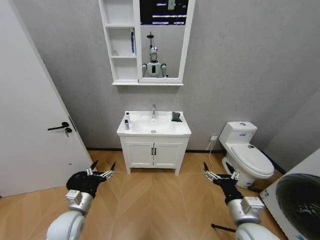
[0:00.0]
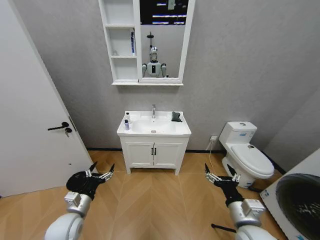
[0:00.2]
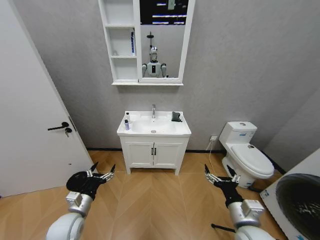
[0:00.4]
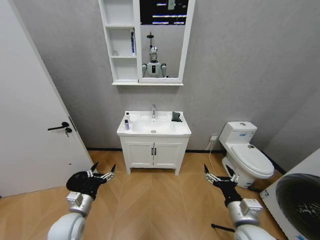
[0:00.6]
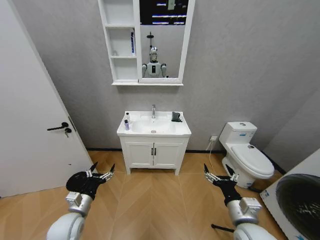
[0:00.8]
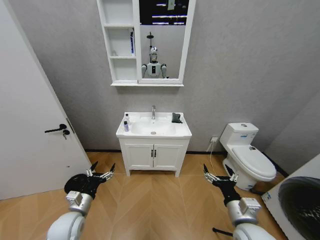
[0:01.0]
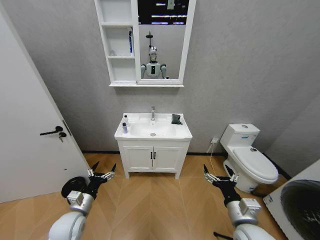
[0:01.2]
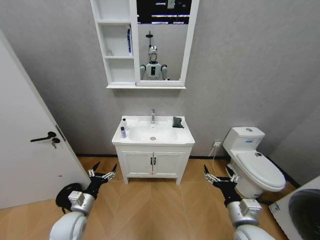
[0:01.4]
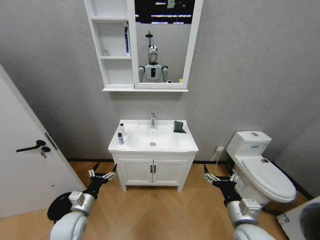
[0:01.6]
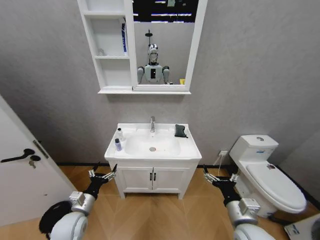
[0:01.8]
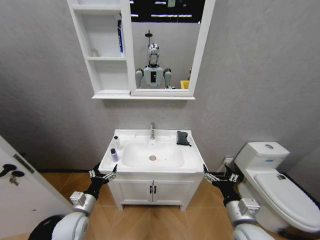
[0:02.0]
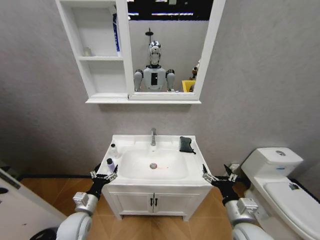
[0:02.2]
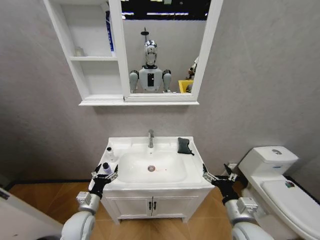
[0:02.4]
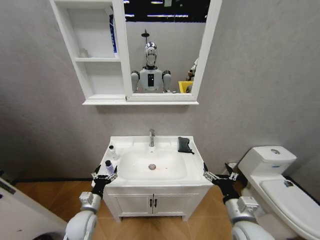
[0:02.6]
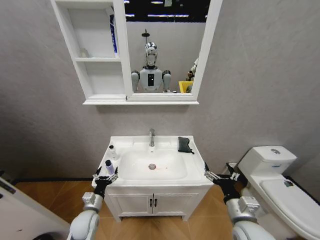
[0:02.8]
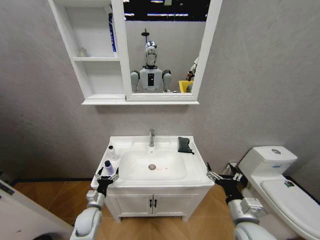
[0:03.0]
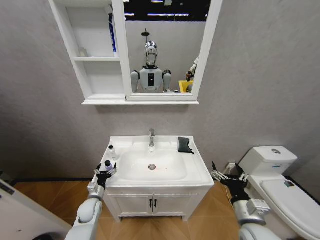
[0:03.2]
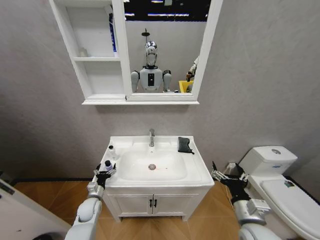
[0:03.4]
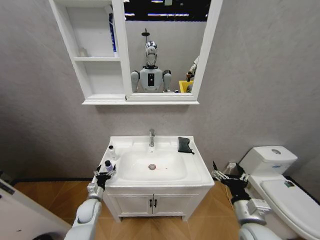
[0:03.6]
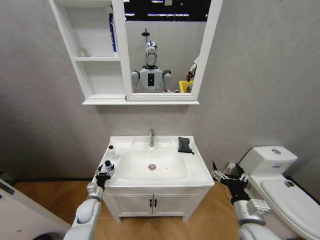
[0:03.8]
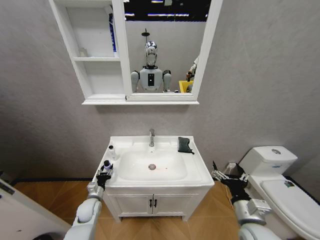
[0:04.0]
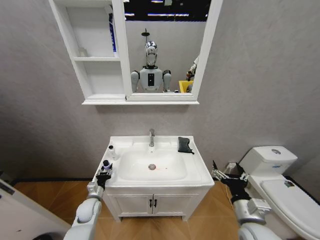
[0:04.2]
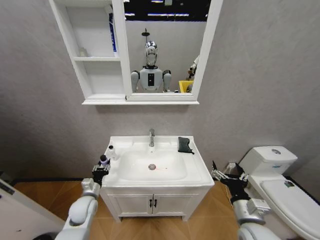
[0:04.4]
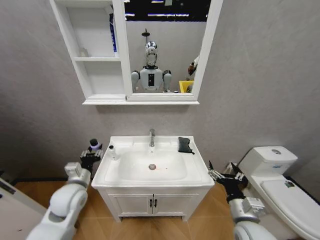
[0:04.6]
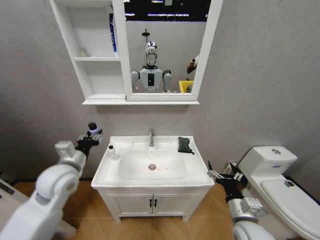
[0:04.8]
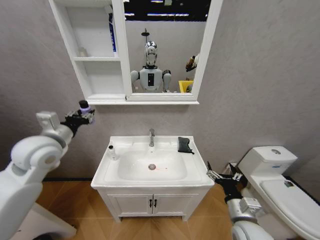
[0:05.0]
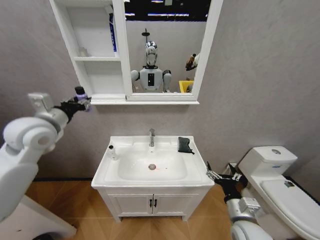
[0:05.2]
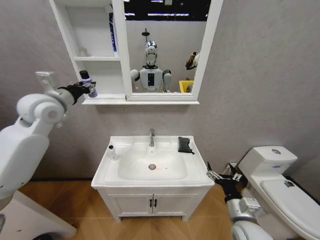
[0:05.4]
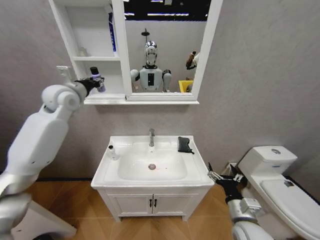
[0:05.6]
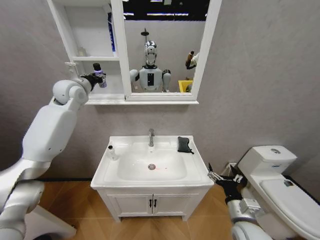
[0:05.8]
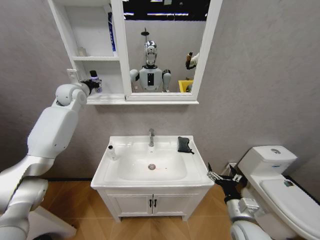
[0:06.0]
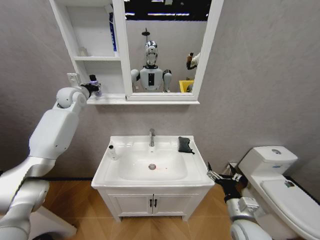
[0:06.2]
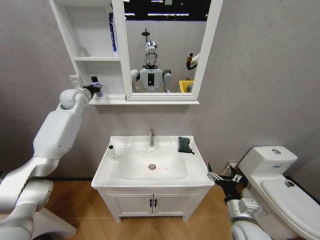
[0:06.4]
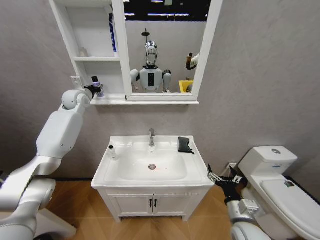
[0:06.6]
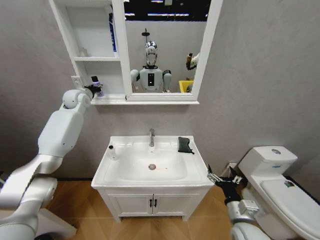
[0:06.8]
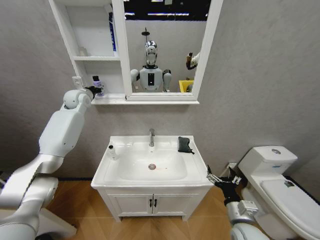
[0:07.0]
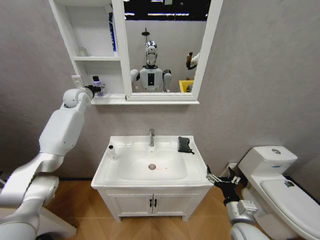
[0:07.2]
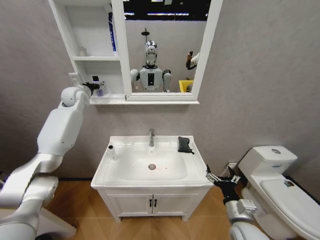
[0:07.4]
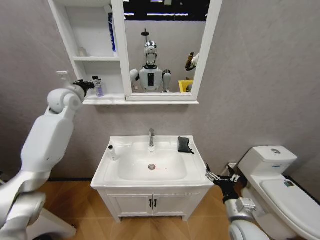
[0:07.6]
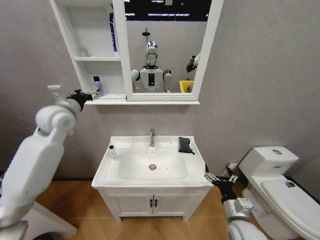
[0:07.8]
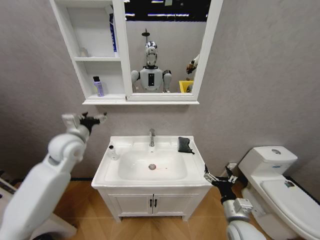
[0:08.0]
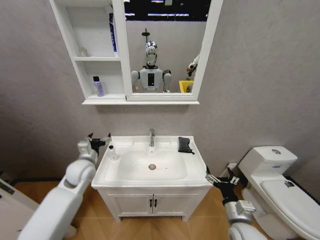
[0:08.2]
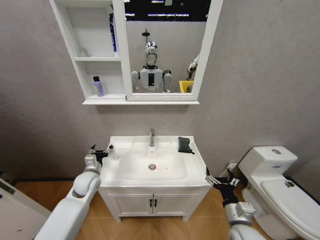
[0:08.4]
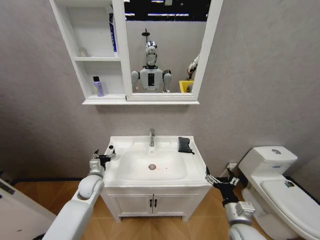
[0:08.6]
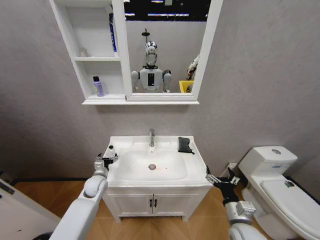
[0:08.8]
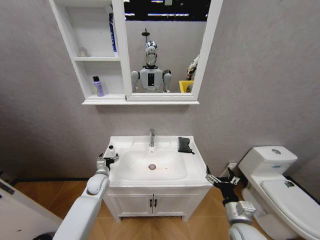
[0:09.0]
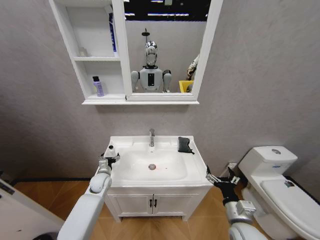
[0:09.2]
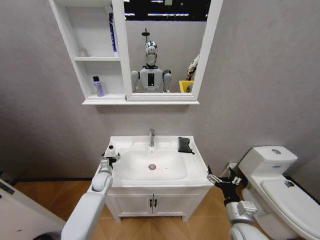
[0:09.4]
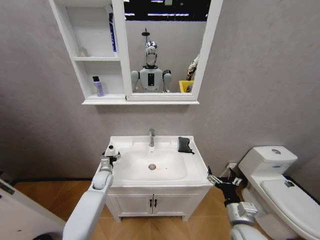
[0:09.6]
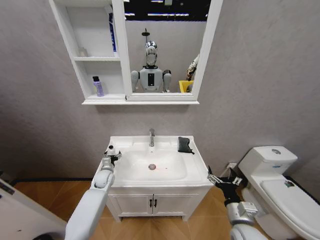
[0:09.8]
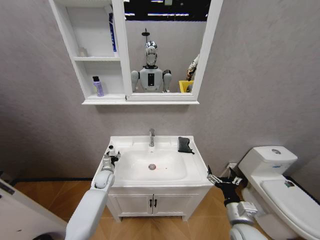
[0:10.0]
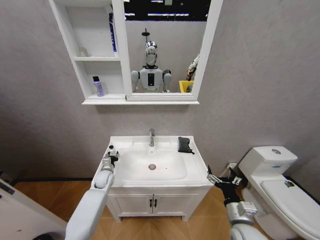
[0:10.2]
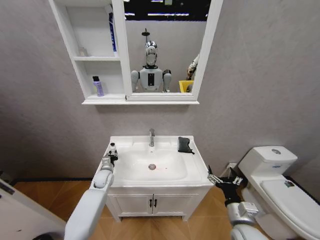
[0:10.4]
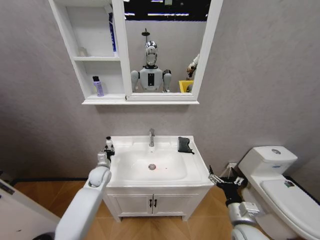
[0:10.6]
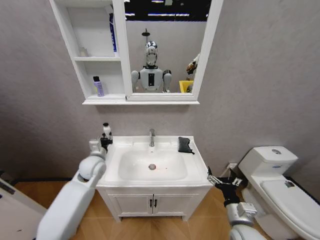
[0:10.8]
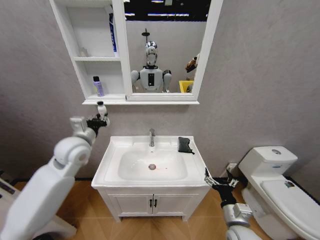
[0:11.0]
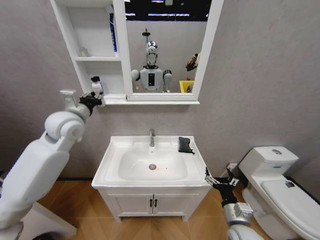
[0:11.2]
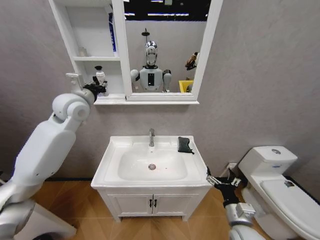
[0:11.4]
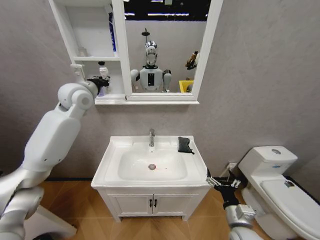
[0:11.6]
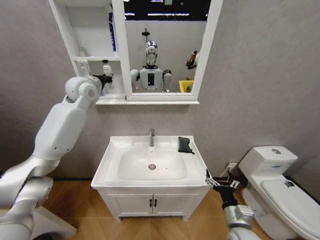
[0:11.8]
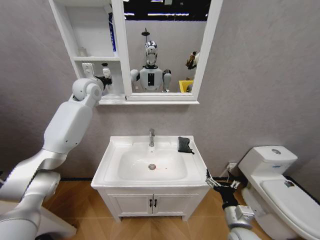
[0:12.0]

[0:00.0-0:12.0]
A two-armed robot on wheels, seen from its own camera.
Task of the whole recording: Move facial cleanser and shampoo from washbasin to cabinet, then wipe washbasin with towel.
0:01.6 to 0:03.0: The left gripper heads downward and forward, covering about 10 cm.
0:03.0 to 0:04.4: The left gripper travels upward by about 5 cm, and closes its fingers.
0:04.4 to 0:06.0: The left gripper travels upward and forward by some 50 cm.
0:06.0 to 0:07.6: The left gripper opens up.
0:07.6 to 0:09.0: The left gripper heads downward, covering approximately 40 cm.
0:09.0 to 0:10.4: The left gripper closes its fingers.
0:10.4 to 0:12.0: The left gripper travels upward by about 40 cm.

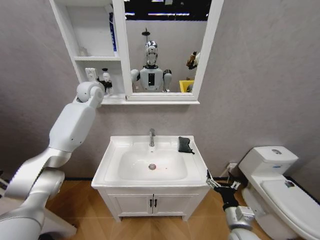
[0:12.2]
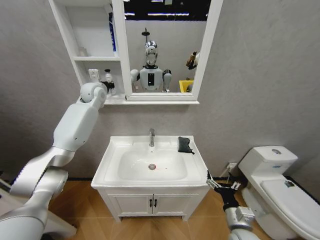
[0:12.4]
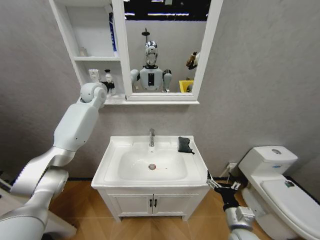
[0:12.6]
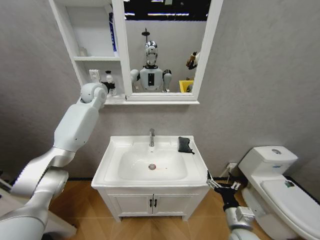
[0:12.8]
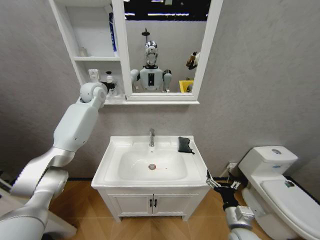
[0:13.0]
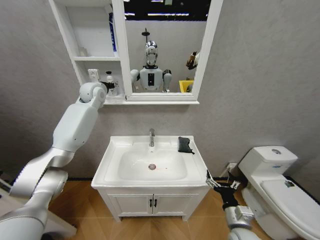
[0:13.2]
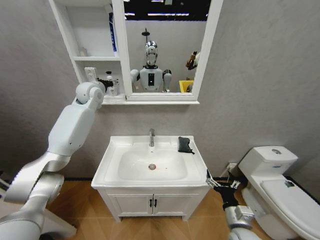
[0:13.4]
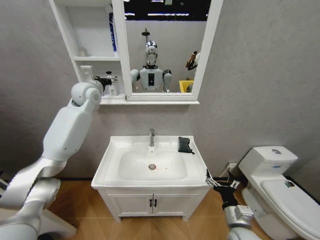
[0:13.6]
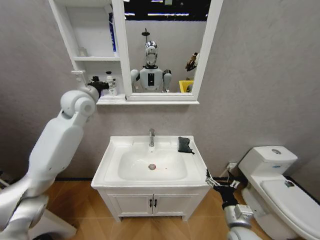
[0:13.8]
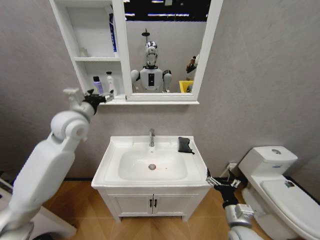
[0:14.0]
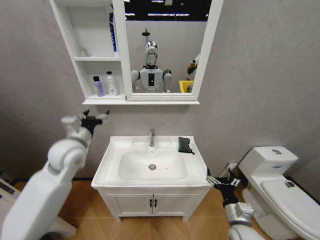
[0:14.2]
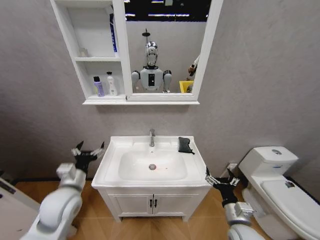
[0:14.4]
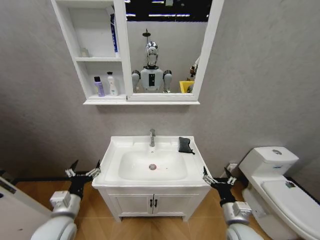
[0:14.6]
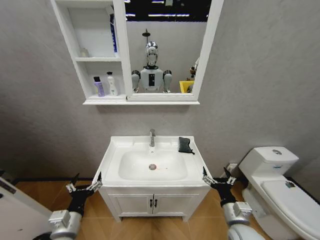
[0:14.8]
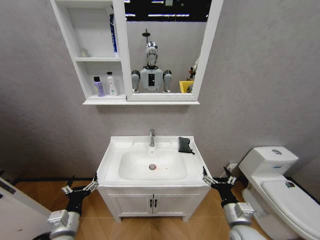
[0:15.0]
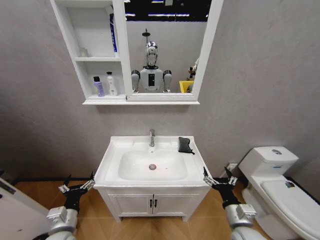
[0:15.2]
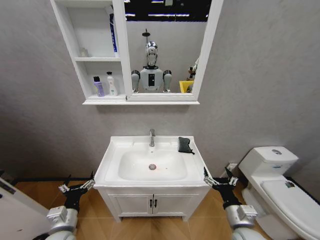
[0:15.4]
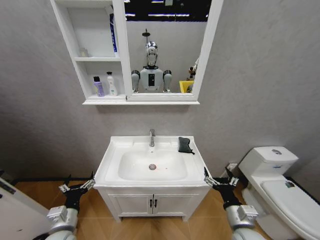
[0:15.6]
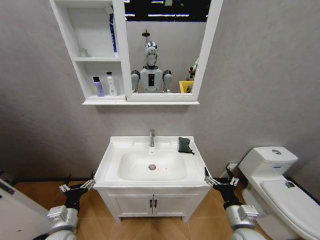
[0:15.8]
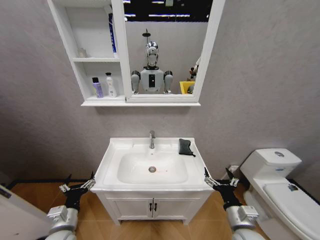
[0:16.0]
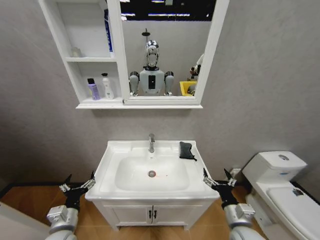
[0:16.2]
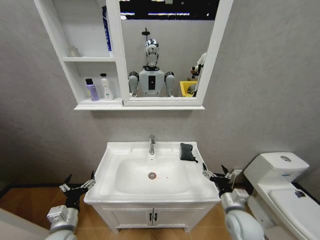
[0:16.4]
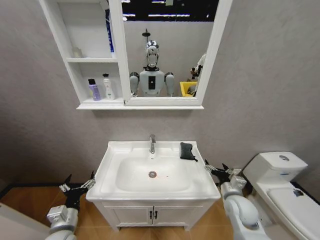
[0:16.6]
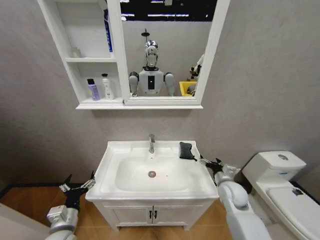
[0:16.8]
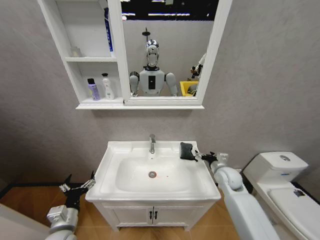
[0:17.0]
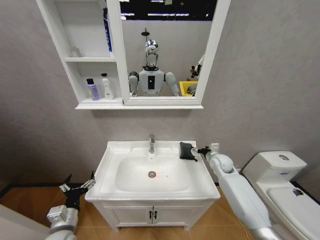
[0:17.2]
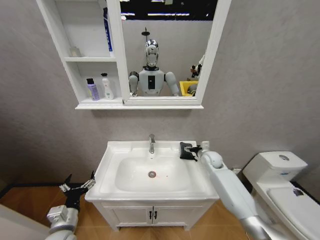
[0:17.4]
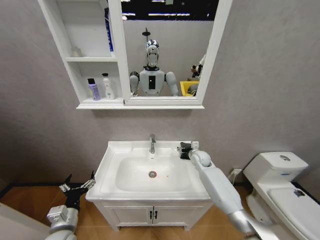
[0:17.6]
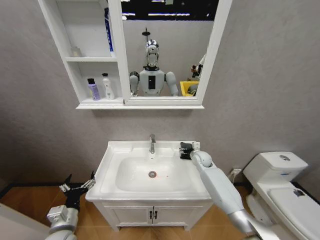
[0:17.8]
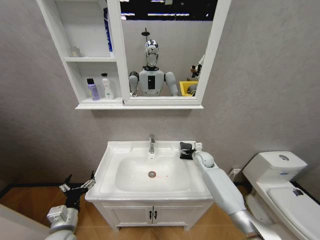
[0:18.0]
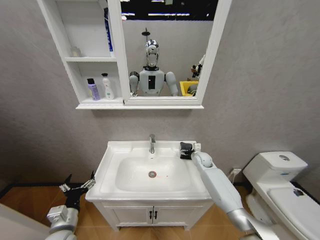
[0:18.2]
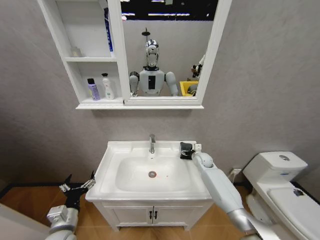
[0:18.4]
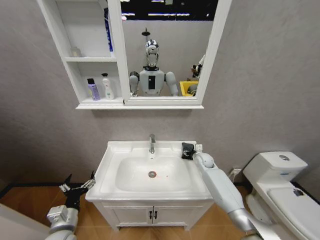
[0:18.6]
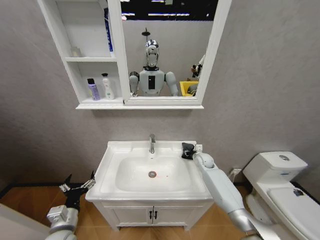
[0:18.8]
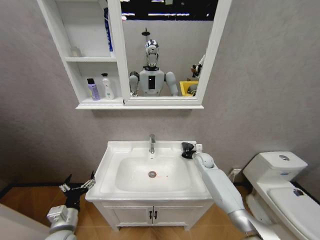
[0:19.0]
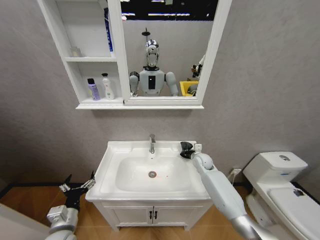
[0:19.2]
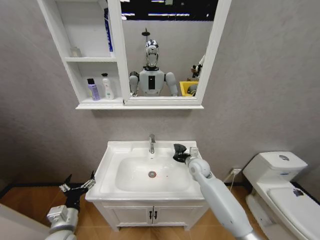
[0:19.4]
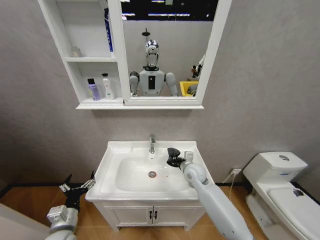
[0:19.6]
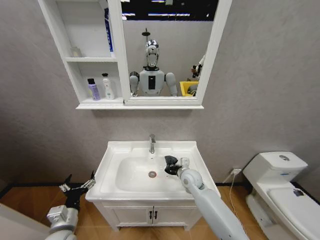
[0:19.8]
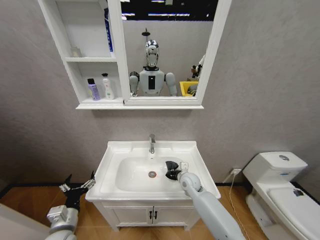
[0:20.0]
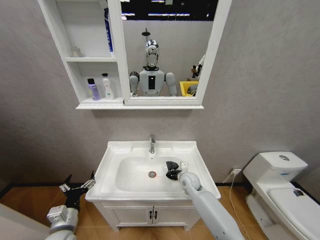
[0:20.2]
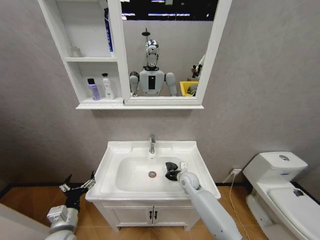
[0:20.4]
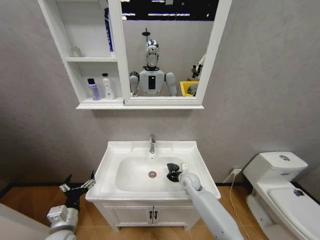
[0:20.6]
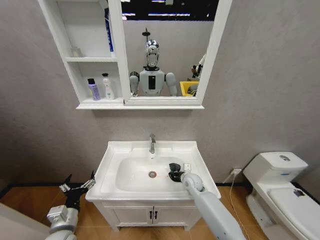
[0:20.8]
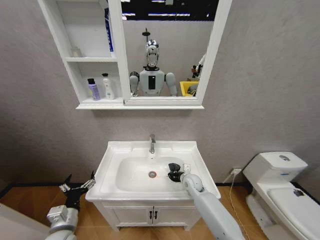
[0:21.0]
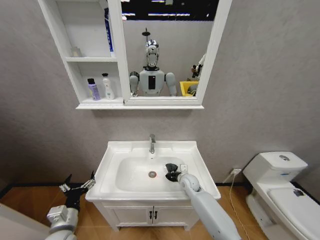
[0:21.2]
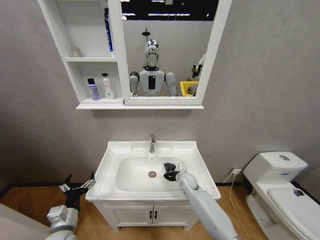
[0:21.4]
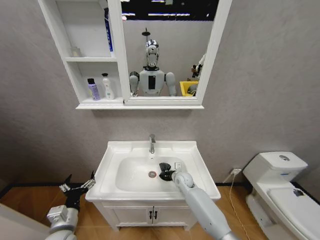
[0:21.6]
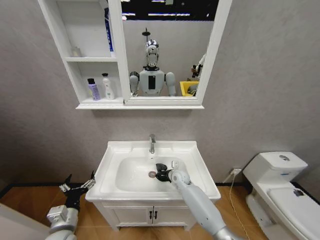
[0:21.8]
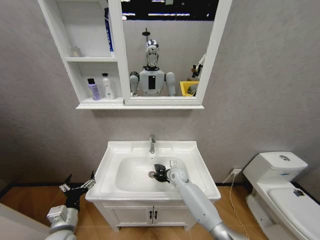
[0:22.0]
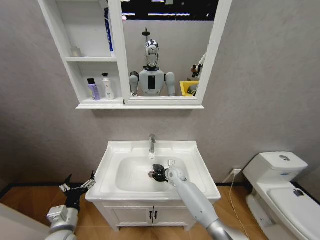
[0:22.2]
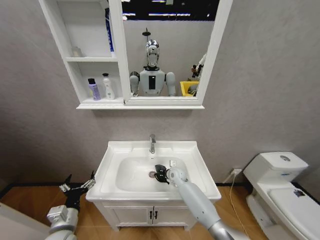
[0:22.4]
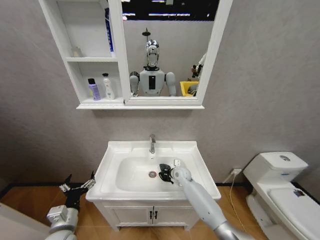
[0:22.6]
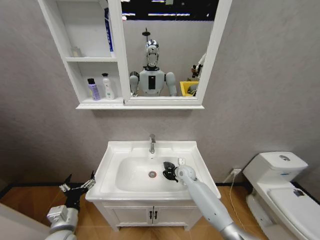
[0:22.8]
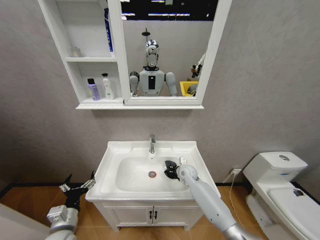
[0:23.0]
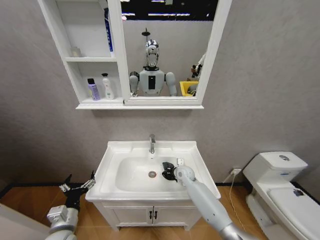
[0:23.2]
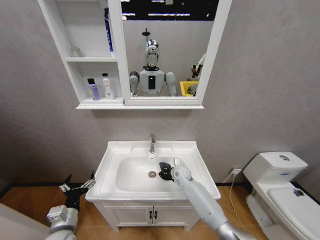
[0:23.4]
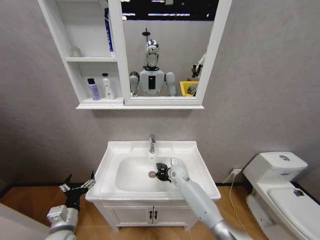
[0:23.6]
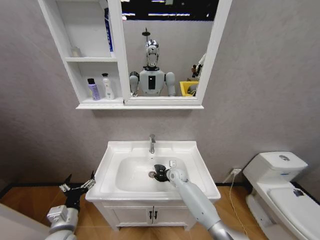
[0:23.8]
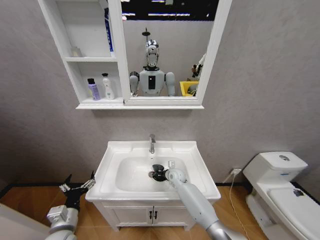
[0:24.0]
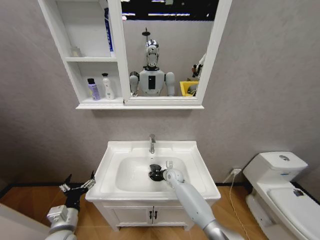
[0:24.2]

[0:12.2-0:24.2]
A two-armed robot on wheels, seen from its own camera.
Task of the whole recording: Move facial cleanser and shampoo from washbasin to cabinet, then wipe washbasin with towel.
0:12.2 to 0:13.8: The left gripper goes roughly 10 cm backward, and opens its fingers.
0:13.8 to 0:15.2: The left gripper moves downward and backward, roughly 50 cm.
0:15.2 to 0:16.6: The right gripper is displaced forward by approximately 10 cm.
0:16.6 to 0:18.2: The right gripper moves forward, some 25 cm.
0:18.2 to 0:19.8: The right gripper goes some 15 cm backward and to the left, and closes up.
0:19.8 to 0:21.2: The right gripper shifts about 5 cm downward.
0:21.2 to 0:22.6: The right gripper is displaced forward by approximately 5 cm.
0:22.6 to 0:24.2: The grippers make only small movements.
